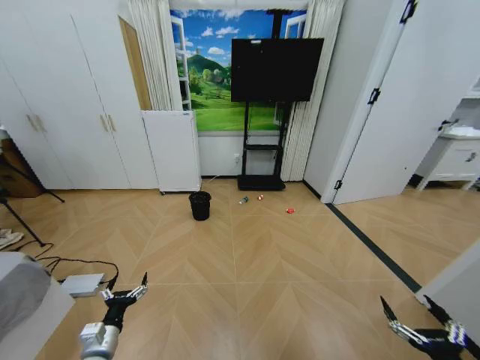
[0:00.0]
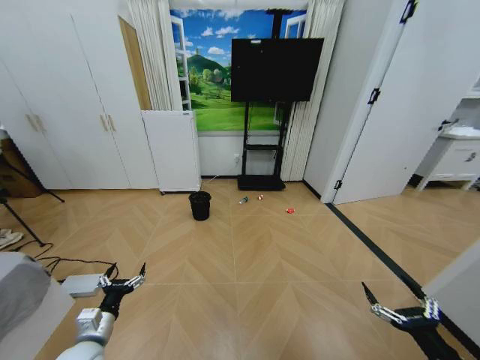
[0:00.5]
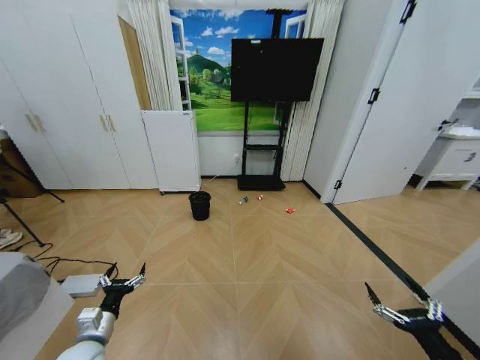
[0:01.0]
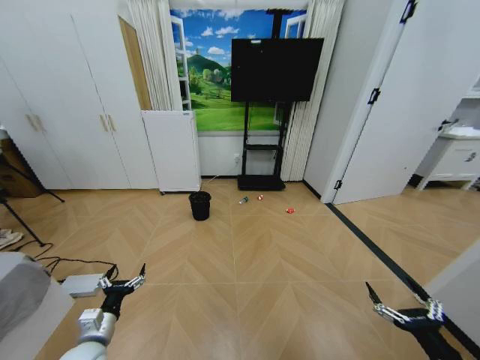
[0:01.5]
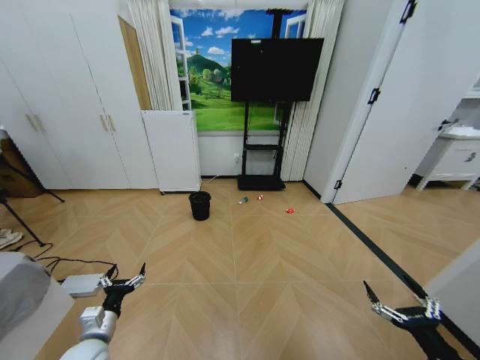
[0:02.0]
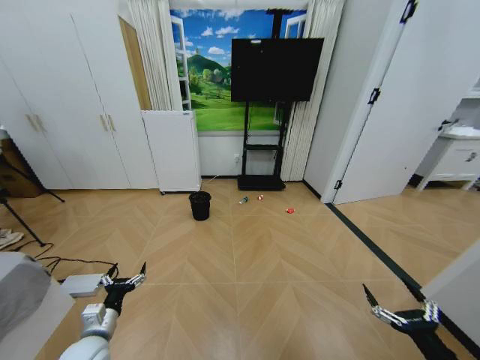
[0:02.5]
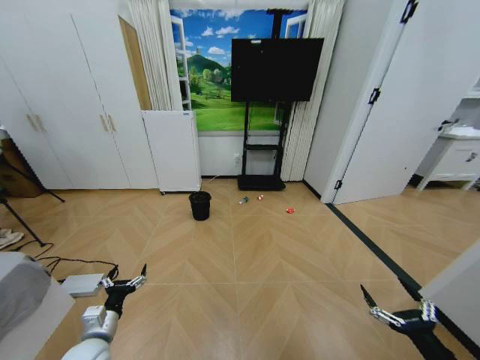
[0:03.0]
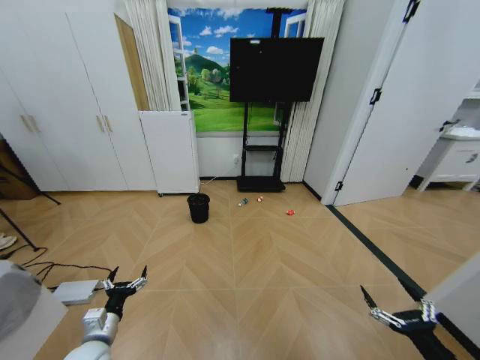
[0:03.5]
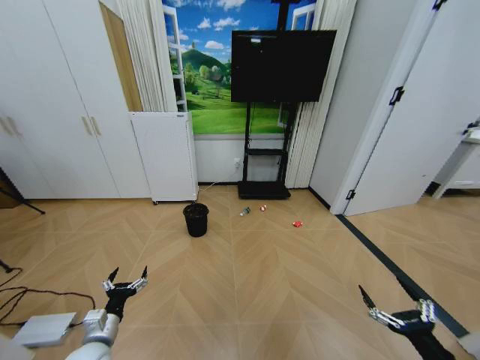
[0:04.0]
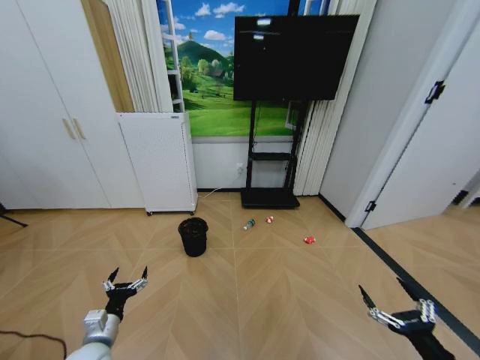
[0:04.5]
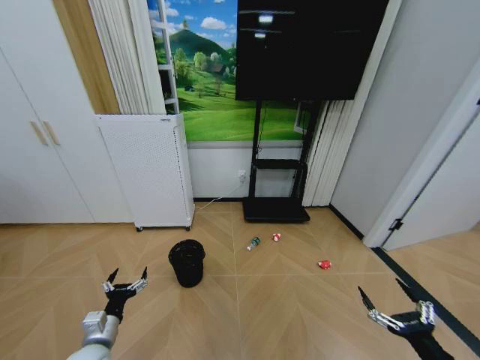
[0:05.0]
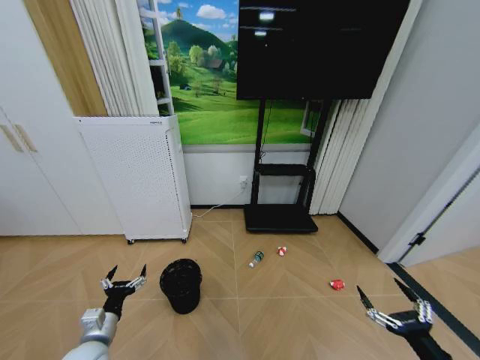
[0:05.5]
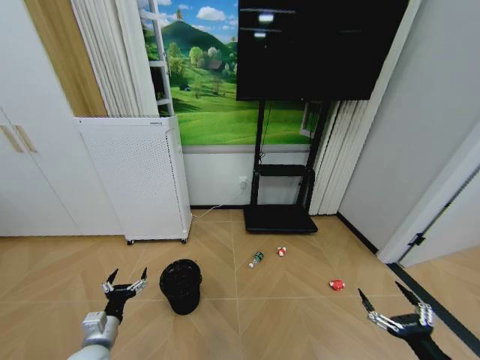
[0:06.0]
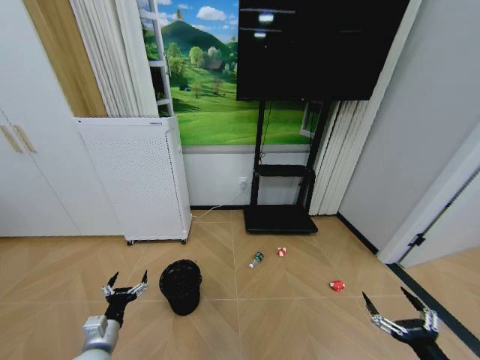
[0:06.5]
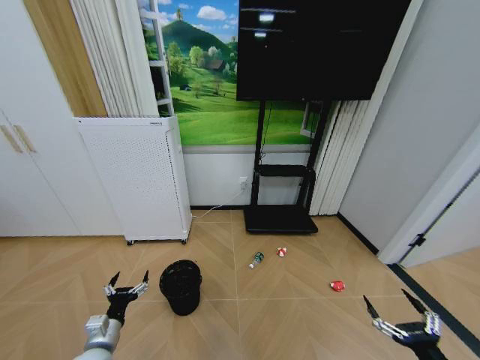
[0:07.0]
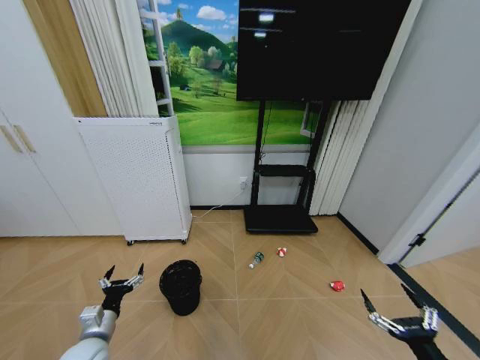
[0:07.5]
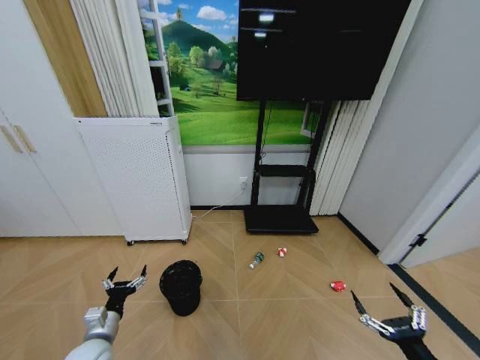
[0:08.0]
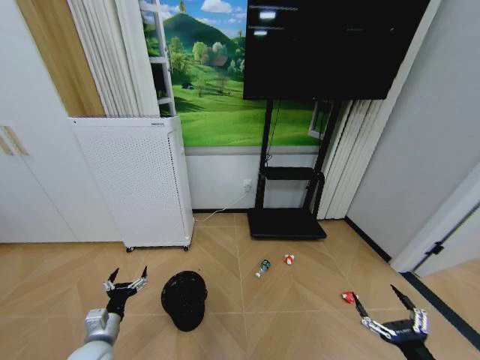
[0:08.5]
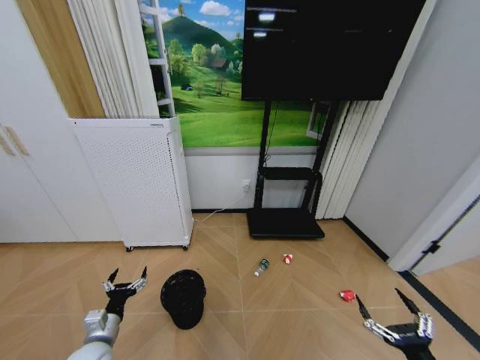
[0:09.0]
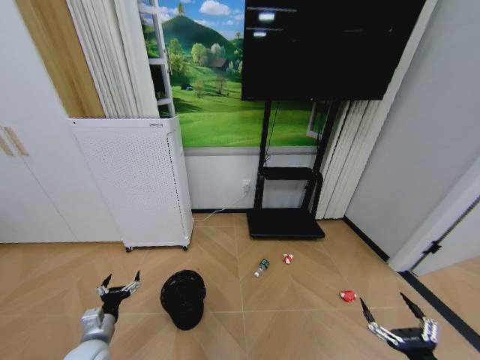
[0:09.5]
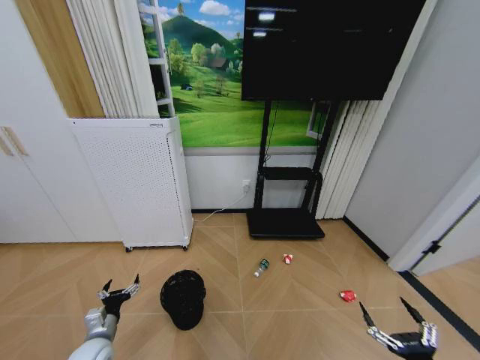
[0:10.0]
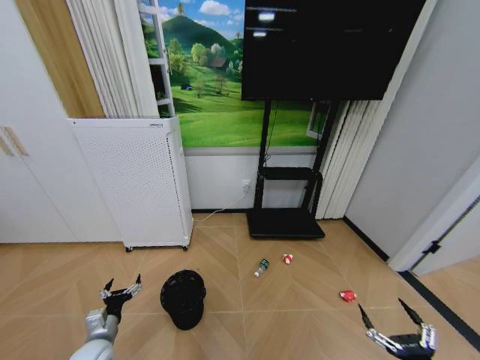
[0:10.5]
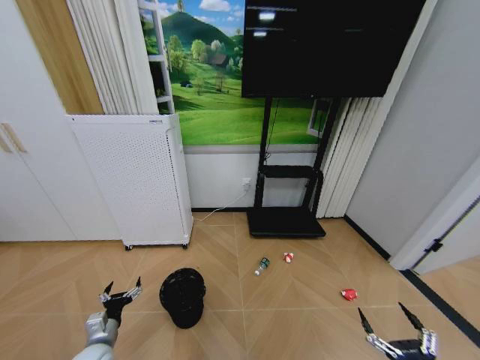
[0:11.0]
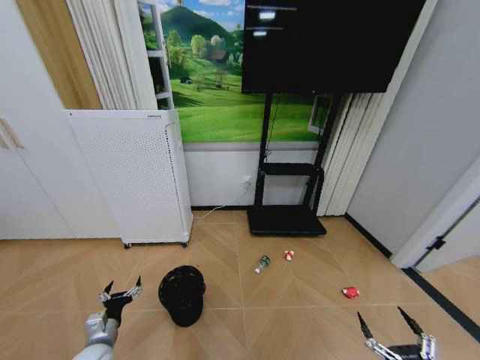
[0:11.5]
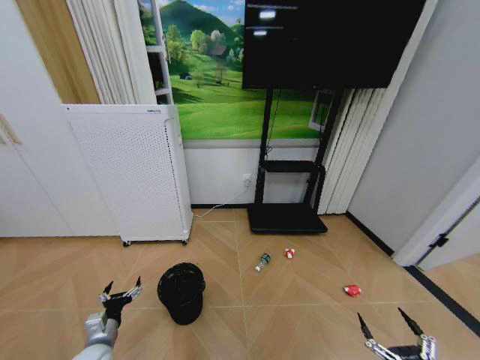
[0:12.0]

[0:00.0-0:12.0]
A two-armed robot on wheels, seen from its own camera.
Task of the whole recording: Pick up the trash bin and place the garbage on the floor into it.
0:06.0 to 0:08.0: The grippers make only small movements.
0:08.0 to 0:10.0: The left gripper ends up approximately 5 cm from where it was.
0:10.0 to 0:12.0: The grippers move only a little.

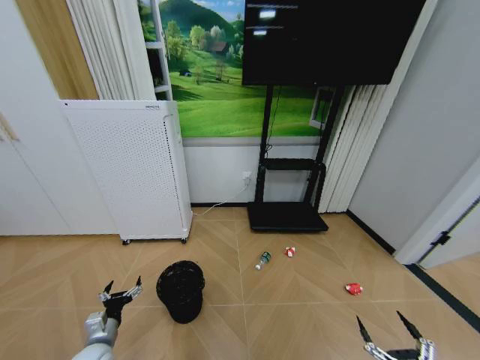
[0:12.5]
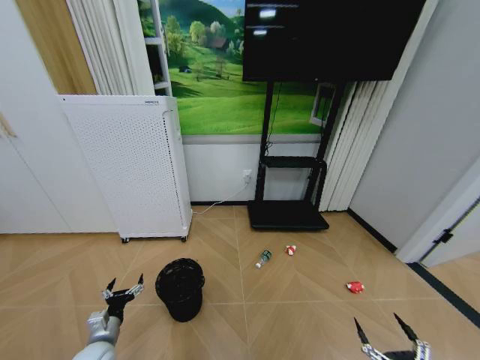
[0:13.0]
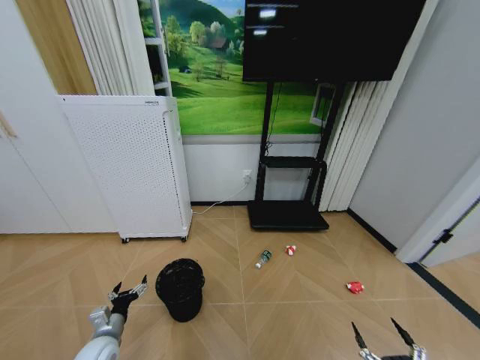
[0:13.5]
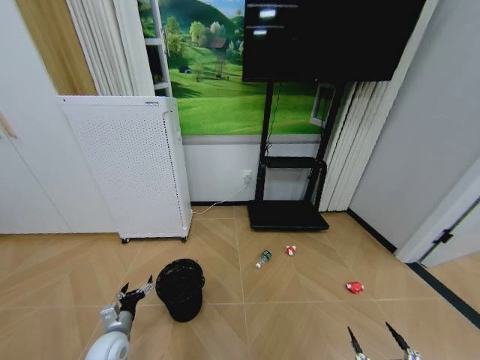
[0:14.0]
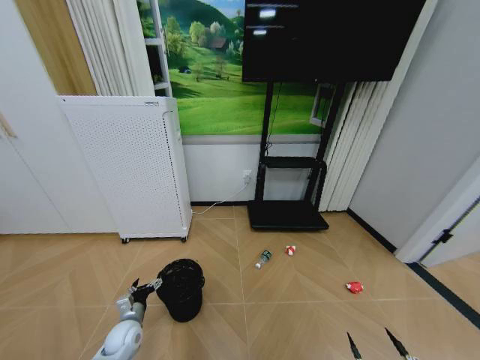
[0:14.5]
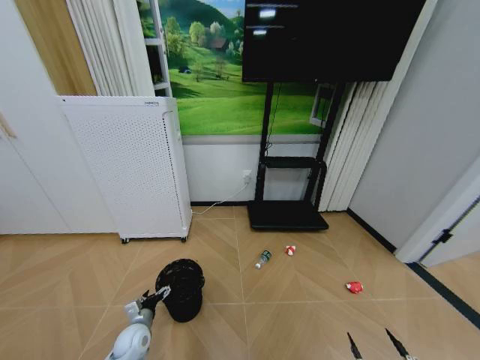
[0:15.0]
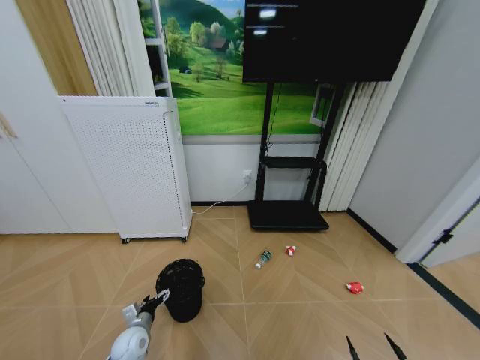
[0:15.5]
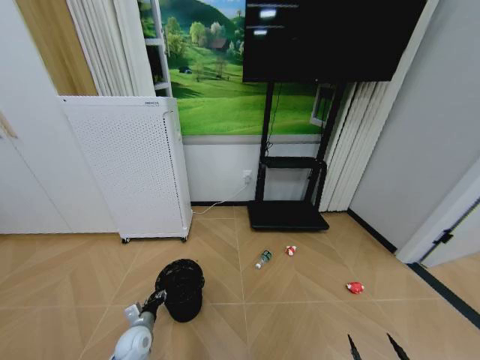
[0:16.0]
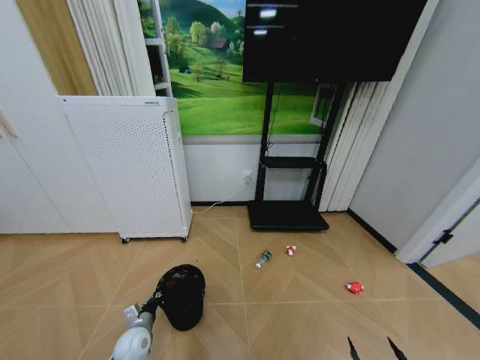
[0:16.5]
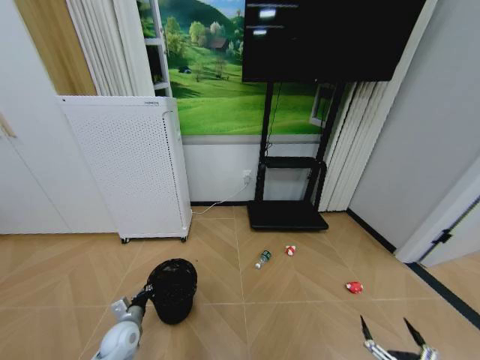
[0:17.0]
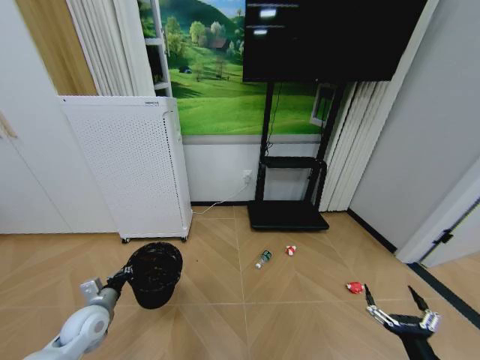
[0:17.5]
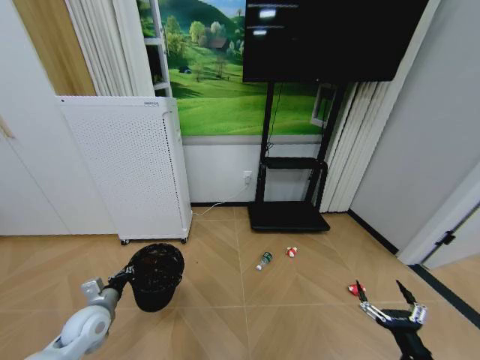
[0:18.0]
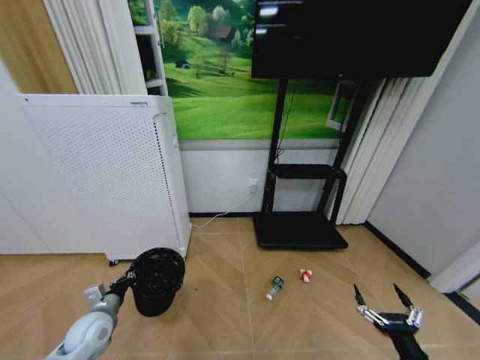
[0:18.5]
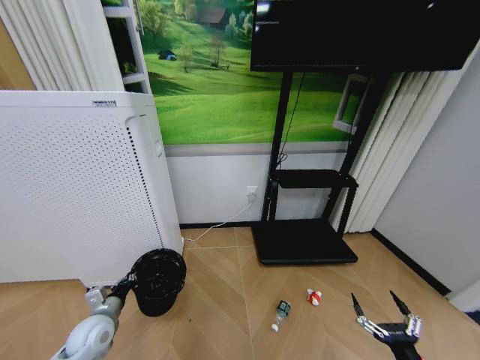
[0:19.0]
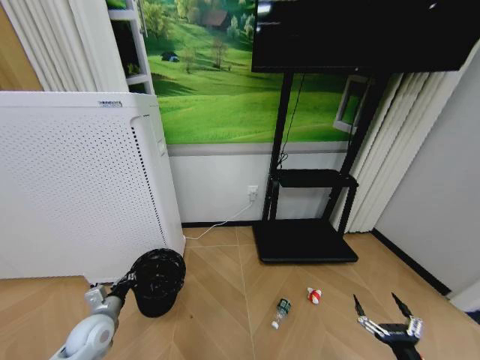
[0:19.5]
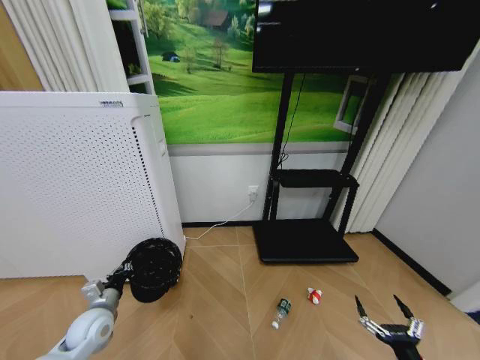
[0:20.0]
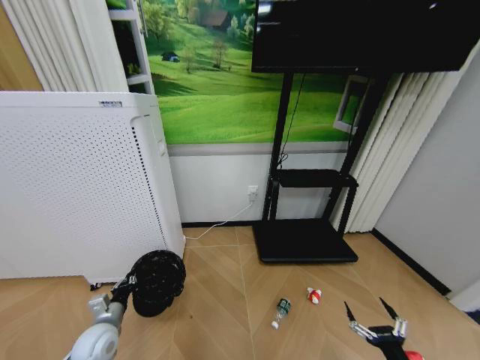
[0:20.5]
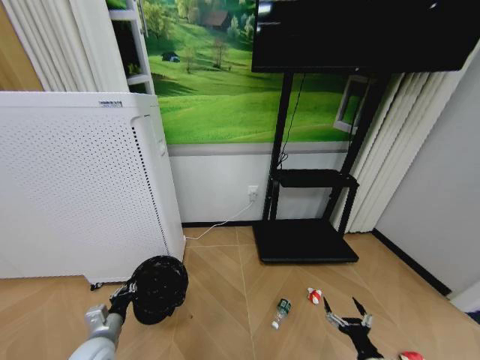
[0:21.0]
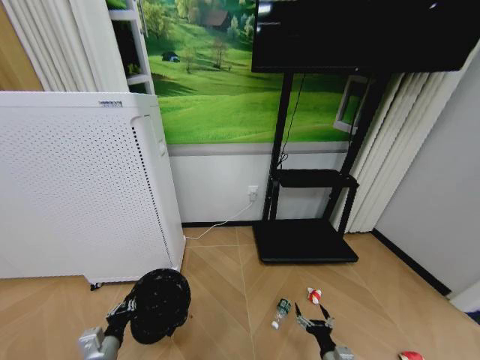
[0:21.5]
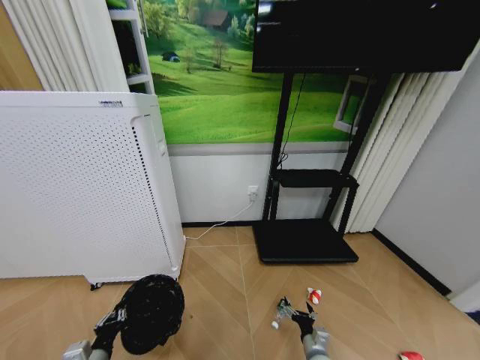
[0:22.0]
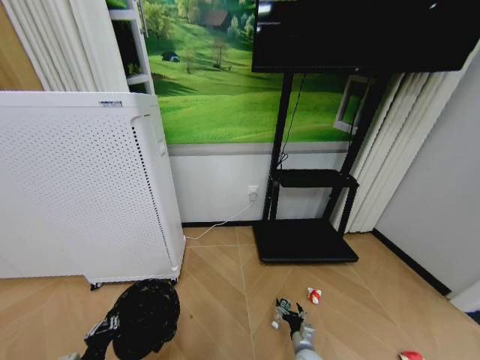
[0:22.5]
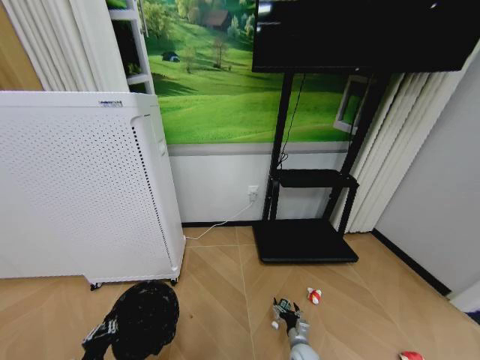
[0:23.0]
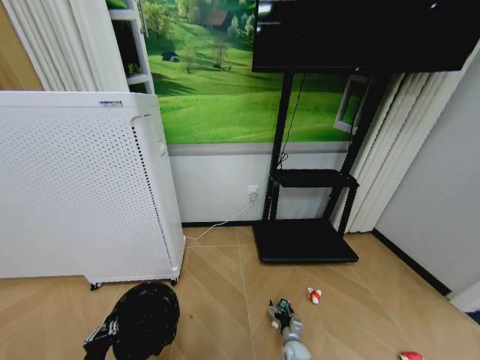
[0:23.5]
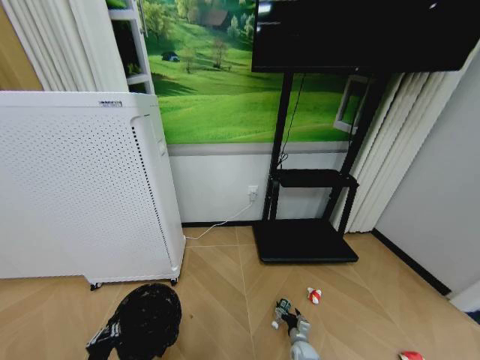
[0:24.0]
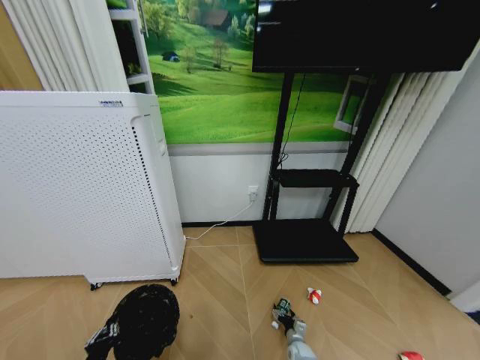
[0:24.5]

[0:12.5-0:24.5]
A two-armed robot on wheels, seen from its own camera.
Task of the whole recording: Pick up the trash bin and place the garbage on the floor into it.
0:12.5 to 0:14.5: The left gripper goes roughly 5 cm forward.
0:14.5 to 0:16.5: The left gripper closes its fingers.
0:16.5 to 0:18.5: The right gripper is displaced forward and upward by roughly 10 cm; the left gripper heads upward and to the left, covering approximately 15 cm.
0:20.5 to 0:22.5: The left gripper goes about 15 cm backward. The right gripper shifts roughly 30 cm downward, forward and to the left.
0:22.5 to 0:24.5: The right gripper moves downward, roughly 5 cm.

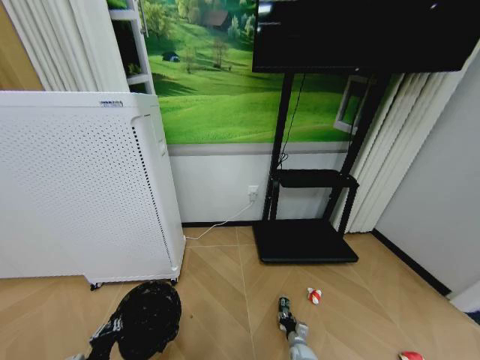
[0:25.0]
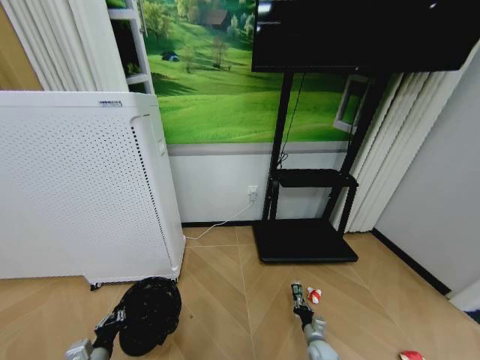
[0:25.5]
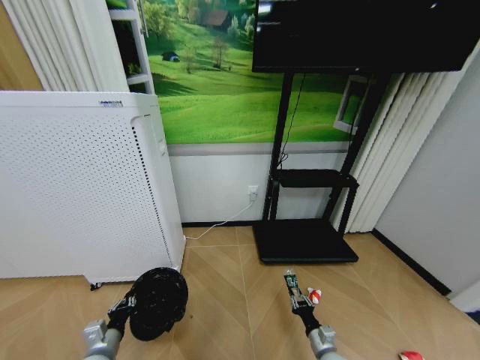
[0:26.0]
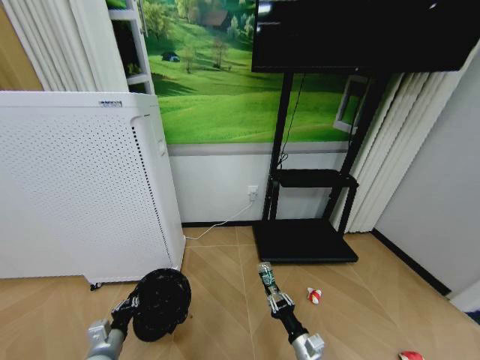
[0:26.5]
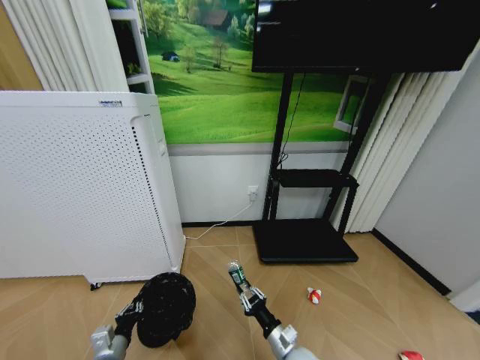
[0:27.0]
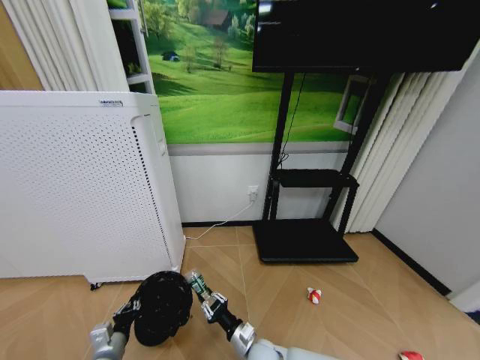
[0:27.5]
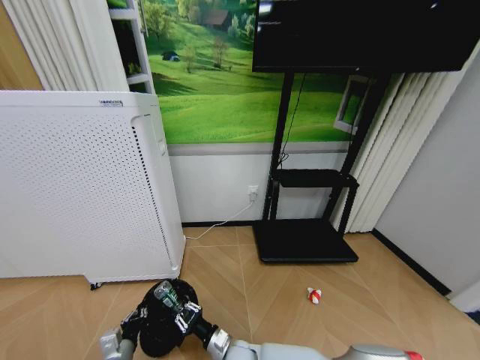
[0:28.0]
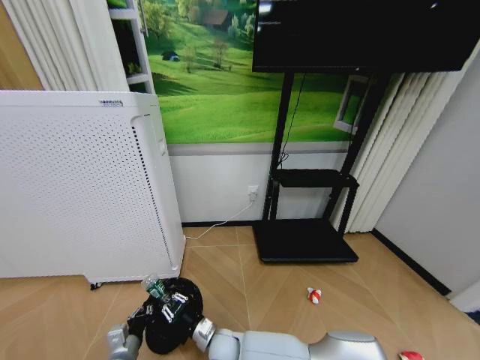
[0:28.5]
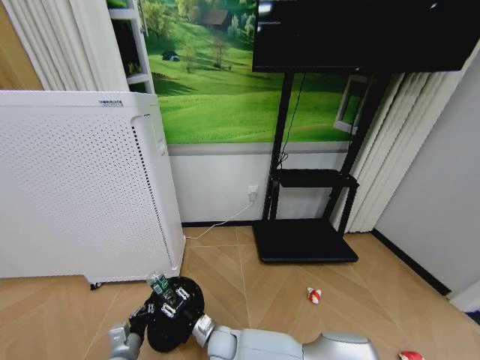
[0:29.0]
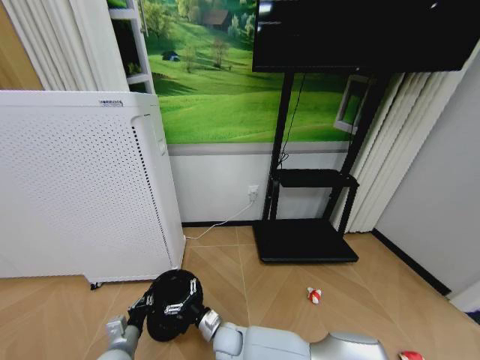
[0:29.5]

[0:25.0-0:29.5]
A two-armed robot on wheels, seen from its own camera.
Task of the whole recording: Pick up the trash bin and place the garbage on the floor into it.
0:25.0 to 0:27.0: The right gripper goes some 25 cm upward, while the left gripper goes about 5 cm forward.
0:27.0 to 0:29.5: The right gripper is displaced to the left by some 20 cm, and opens its fingers.
